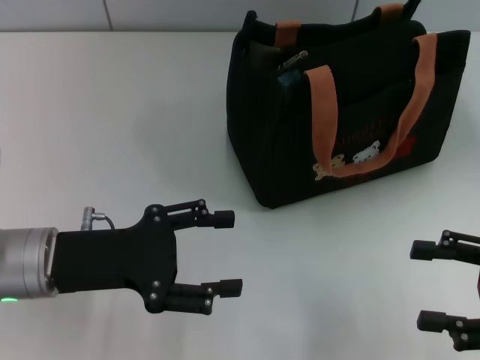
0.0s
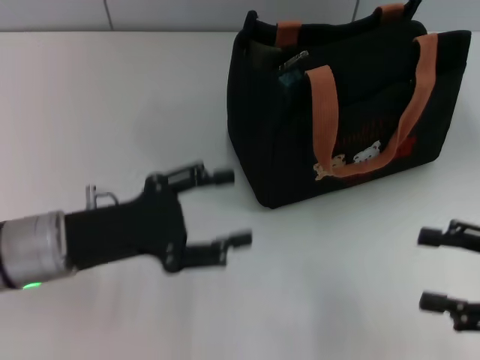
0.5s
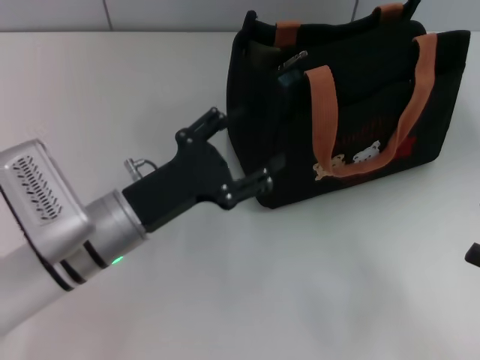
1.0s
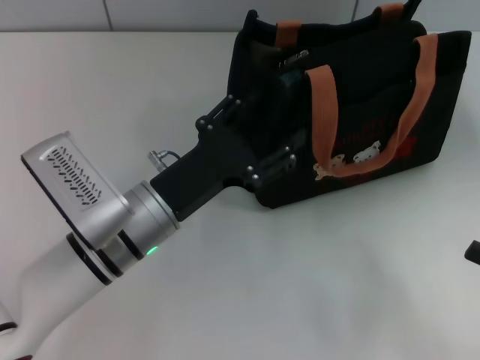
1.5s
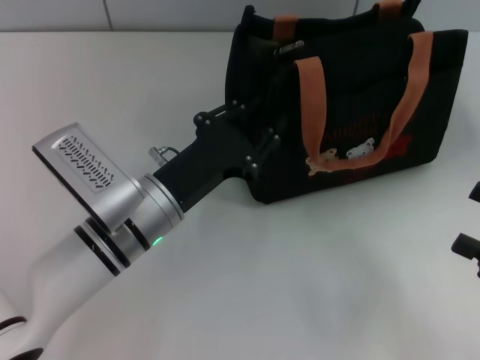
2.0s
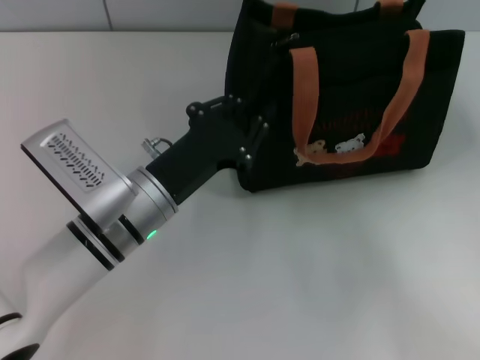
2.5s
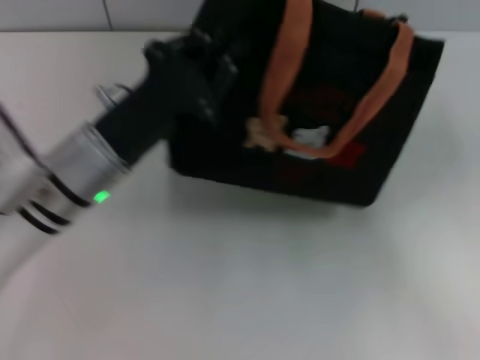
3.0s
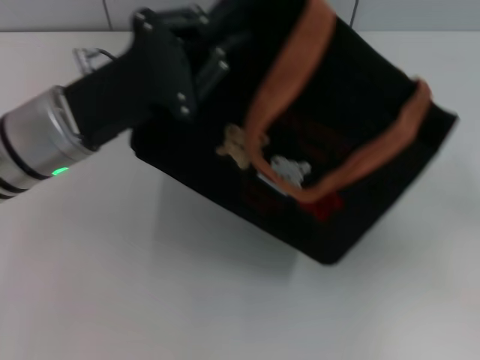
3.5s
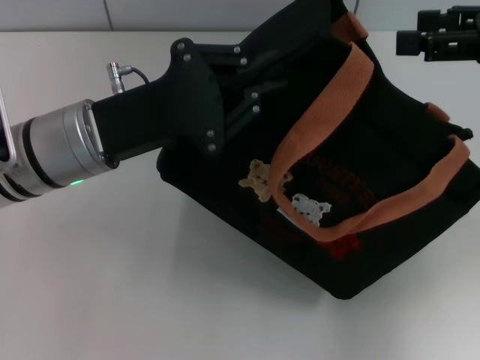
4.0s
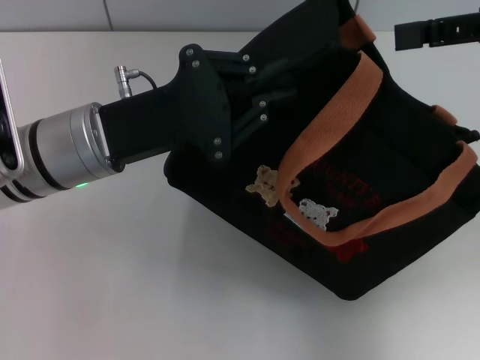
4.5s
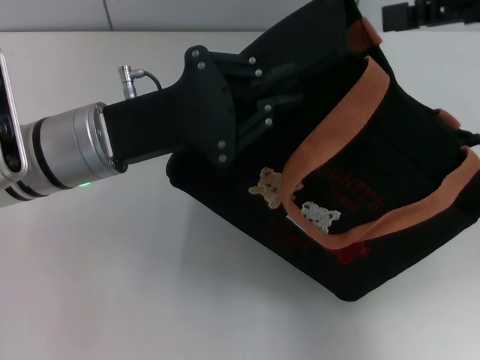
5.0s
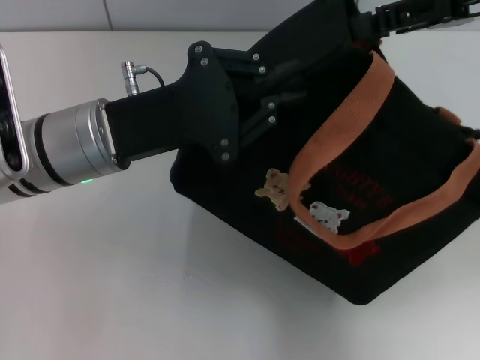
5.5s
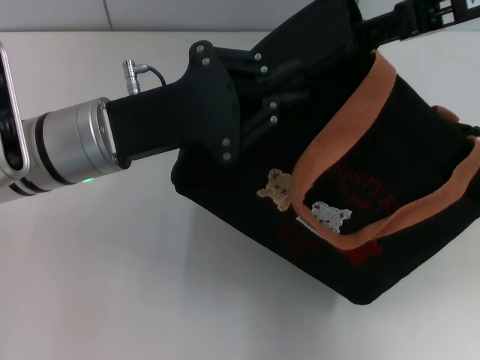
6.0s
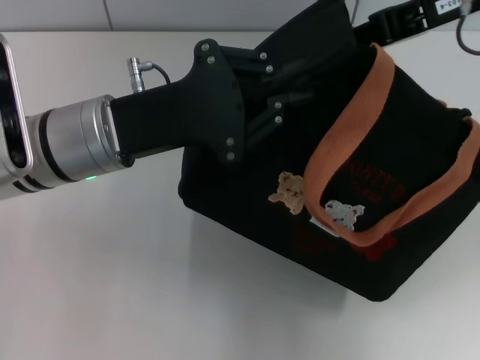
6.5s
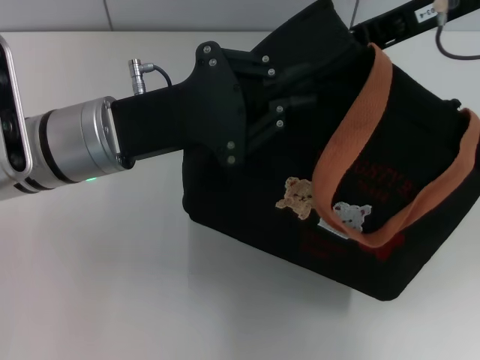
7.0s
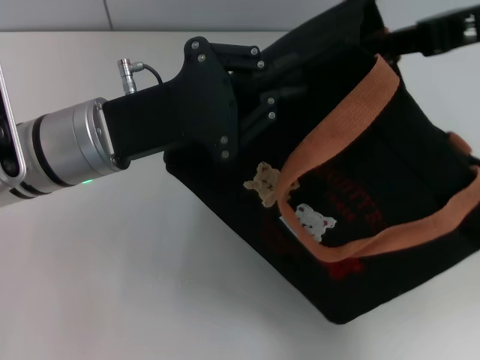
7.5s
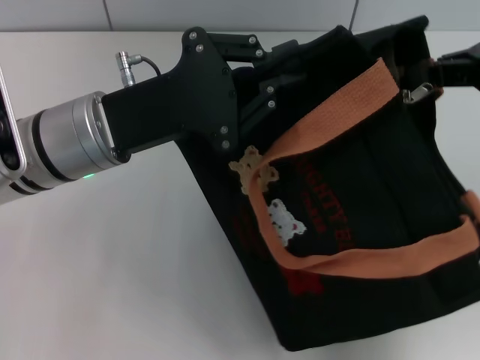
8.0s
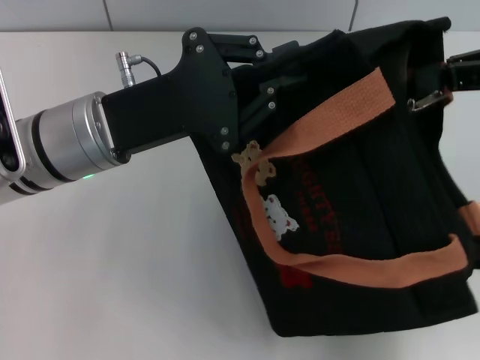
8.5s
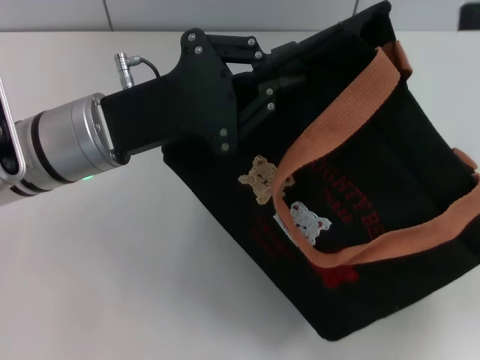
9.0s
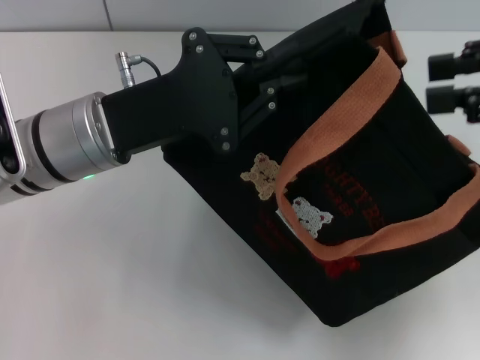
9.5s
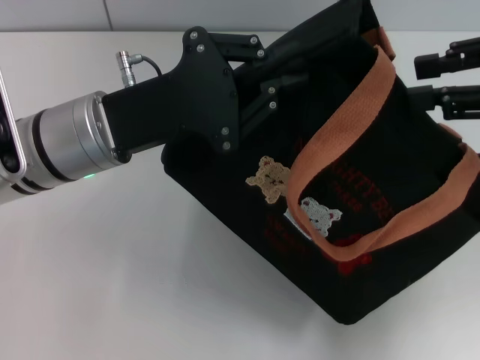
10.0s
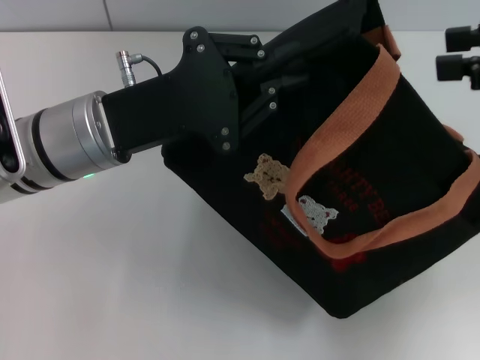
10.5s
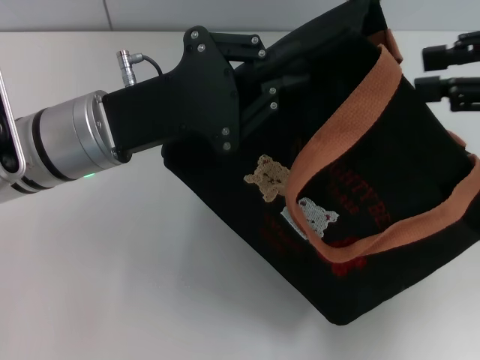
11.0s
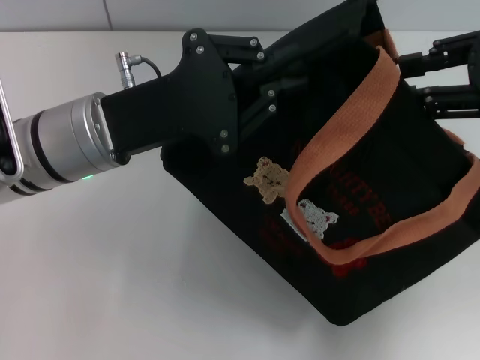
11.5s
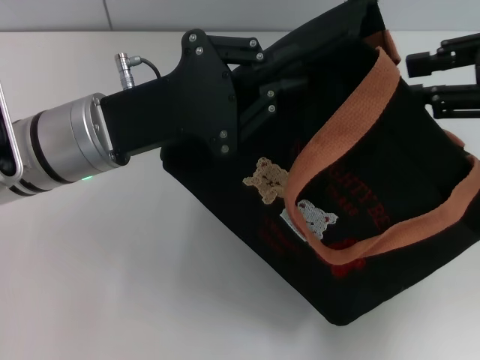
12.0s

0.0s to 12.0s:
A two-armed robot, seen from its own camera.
0.0s to 2.0s: The left gripper travels to the right by roughly 10 cm, and closes up.
2.0s to 4.0s: The left gripper travels upward and to the left by roughly 10 cm, and closes up. The right gripper travels upward and forward by about 20 cm.
4.0s to 6.0s: The right gripper moves to the left, approximately 5 cm.
6.0s to 8.0s: The right gripper moves to the right, approximately 5 cm, and closes its fingers.
8.0s to 10.0s: The right gripper opens.
10.0s to 12.0s: There are only small adjustments of the grippers.

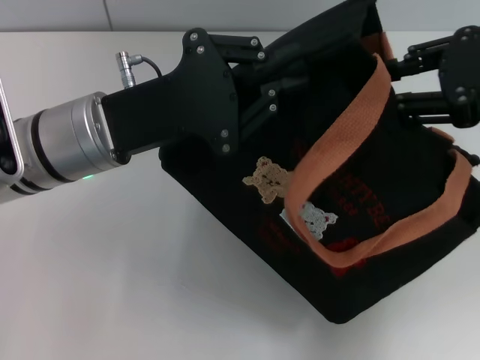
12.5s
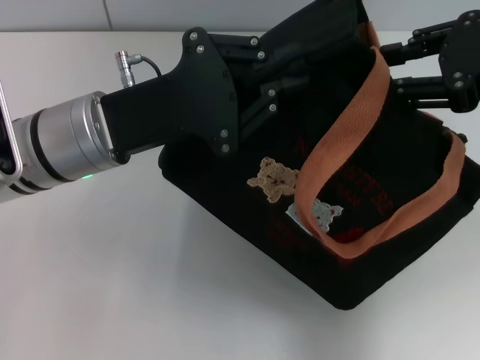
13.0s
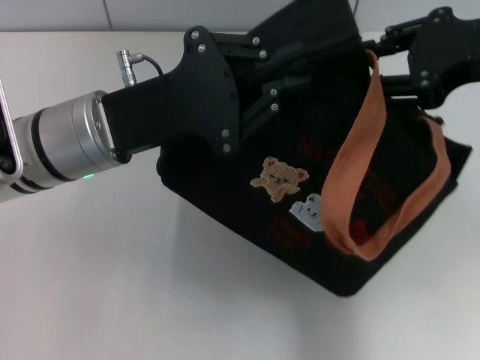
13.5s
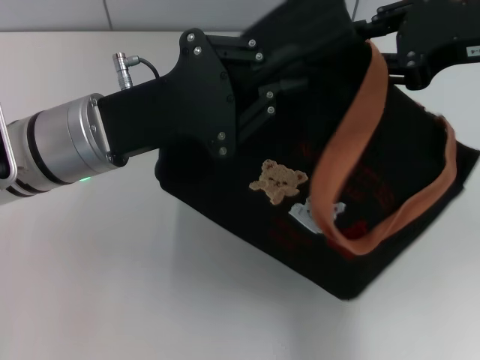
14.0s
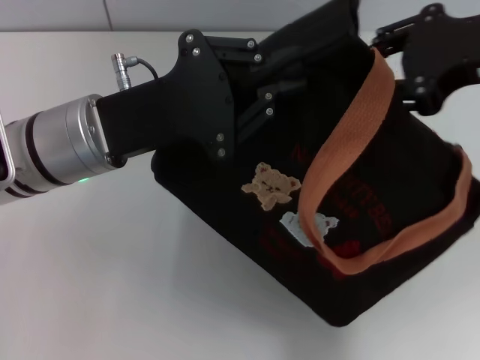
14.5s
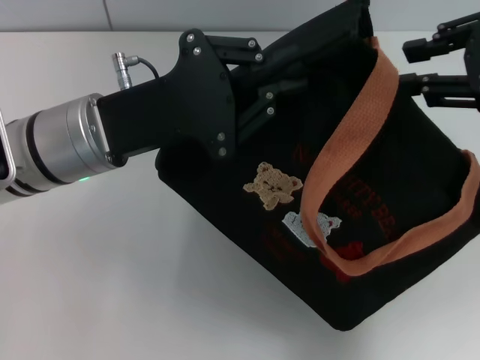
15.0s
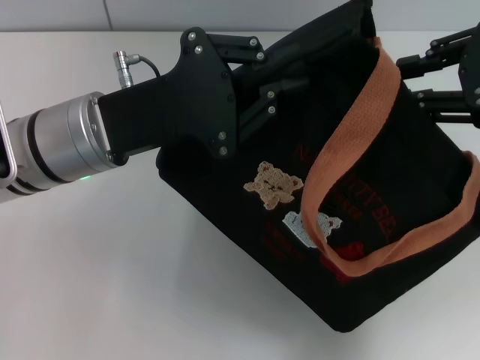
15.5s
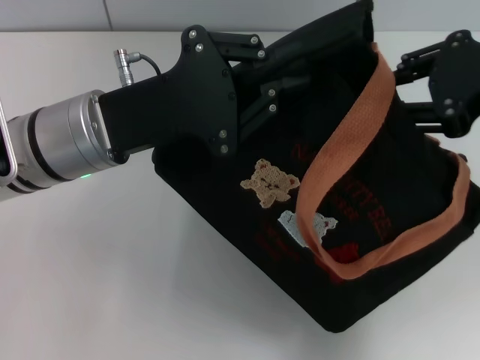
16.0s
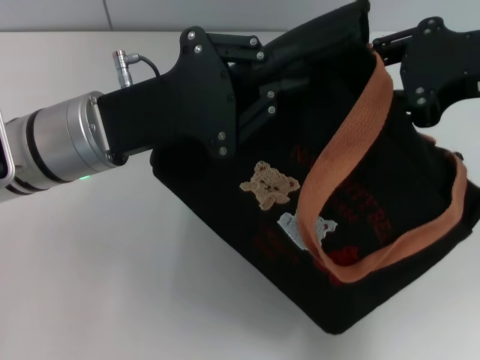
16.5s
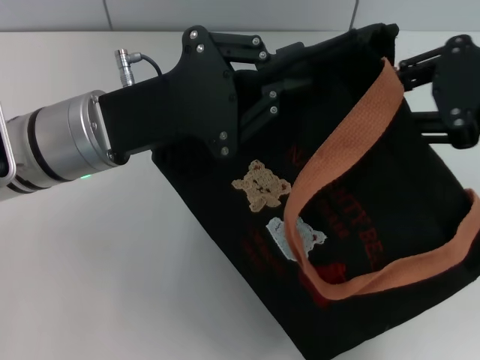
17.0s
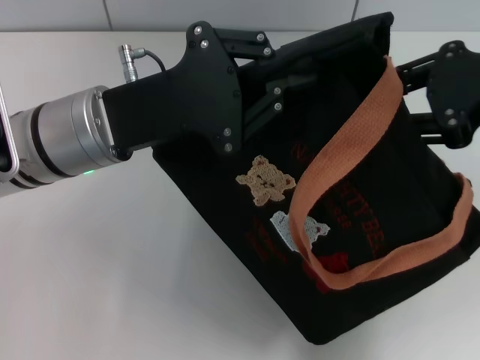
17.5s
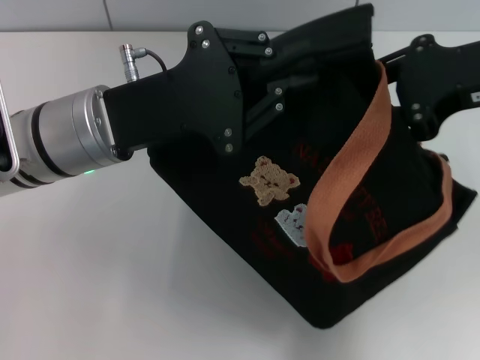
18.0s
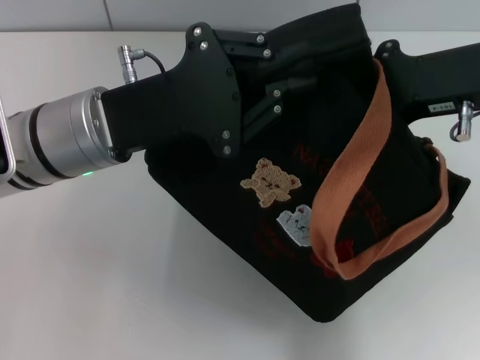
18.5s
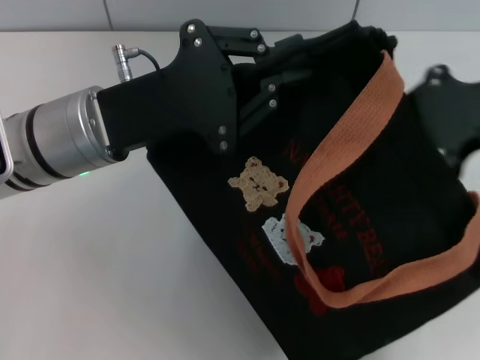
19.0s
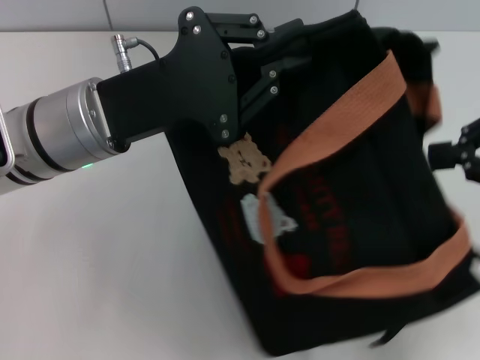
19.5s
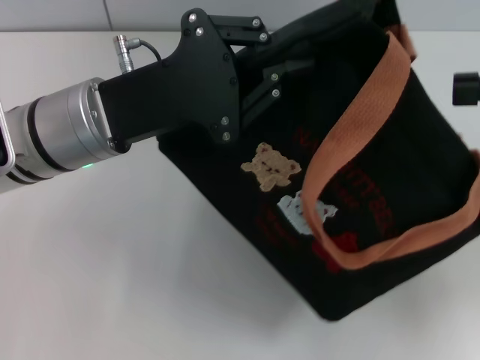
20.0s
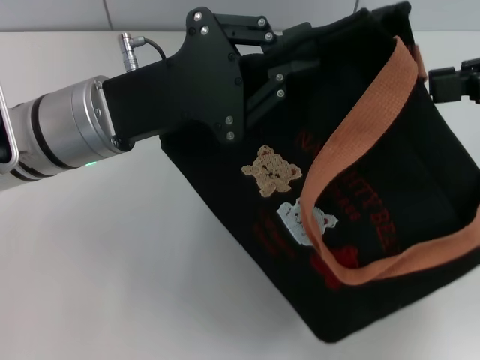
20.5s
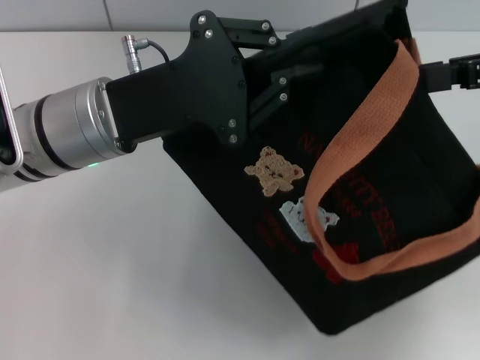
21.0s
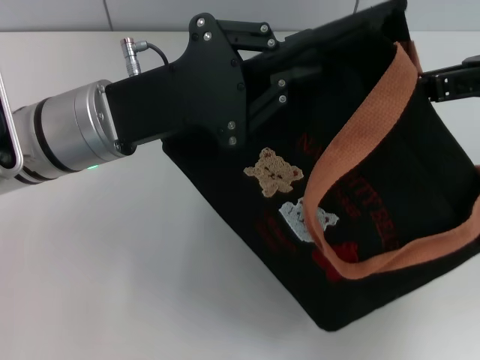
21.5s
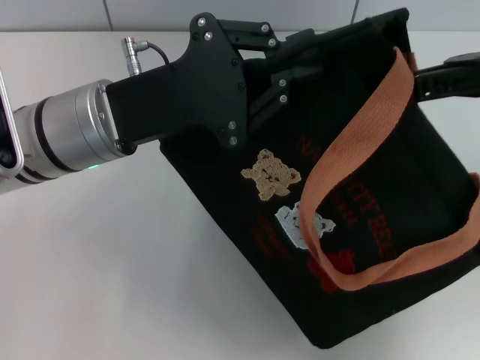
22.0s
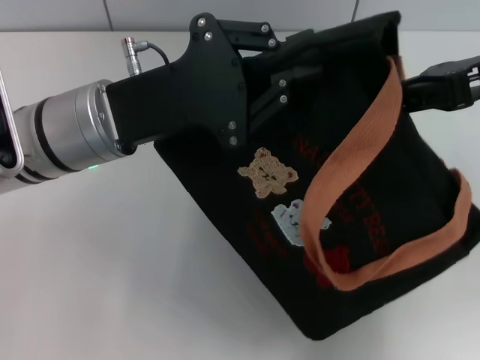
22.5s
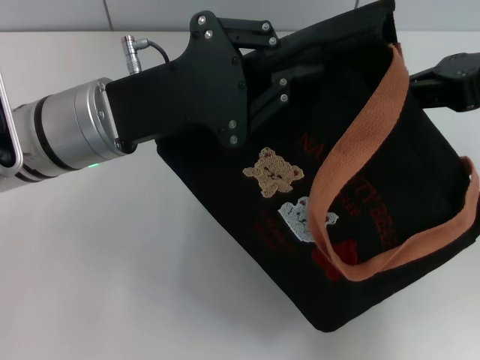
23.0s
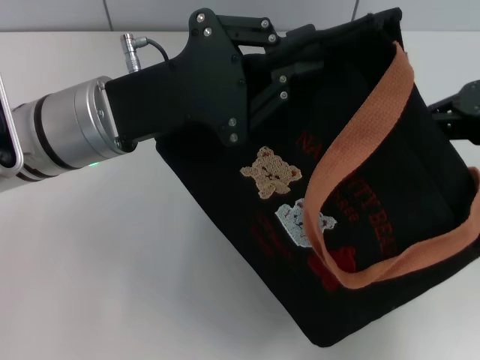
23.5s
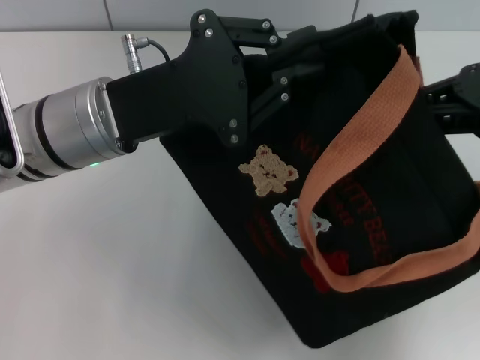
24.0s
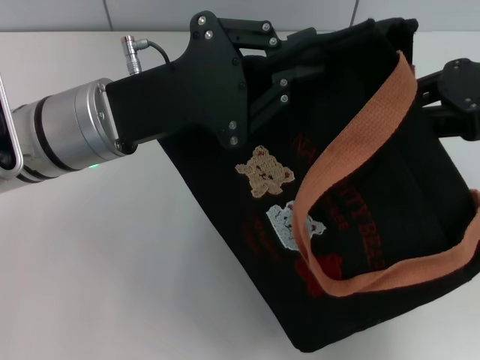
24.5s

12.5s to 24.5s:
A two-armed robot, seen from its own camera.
12.5s to 18.5s: The grippers move only a little.
18.5s to 20.5s: The right gripper moves to the right, approximately 10 cm.
20.5s to 22.5s: The right gripper heads to the left, covering roughly 5 cm.
22.5s to 24.5s: The grippers make only small movements.

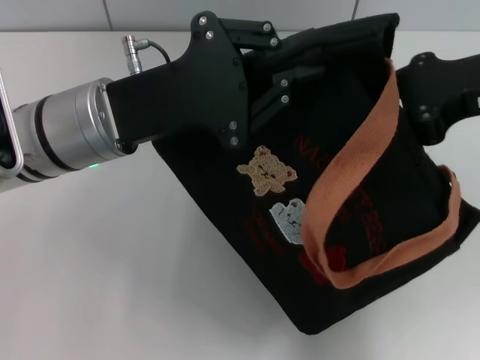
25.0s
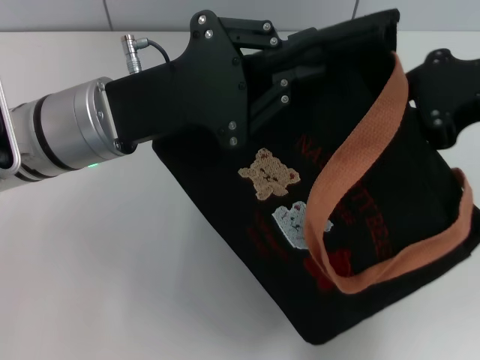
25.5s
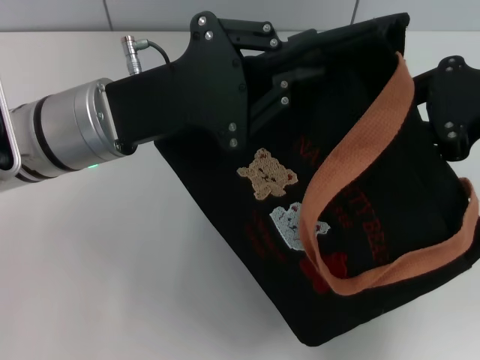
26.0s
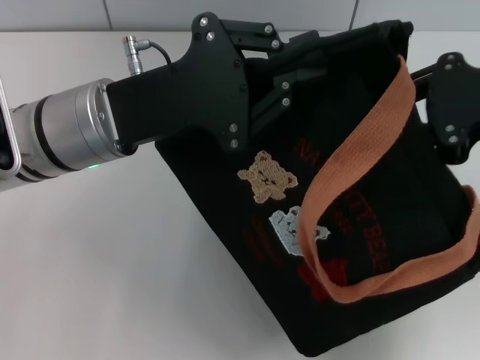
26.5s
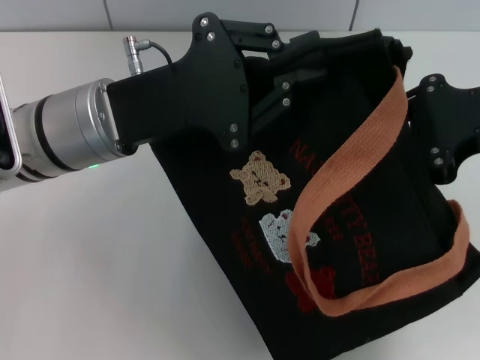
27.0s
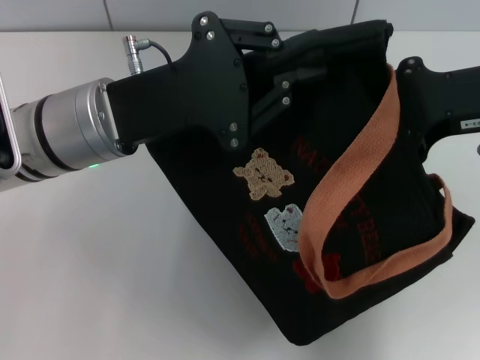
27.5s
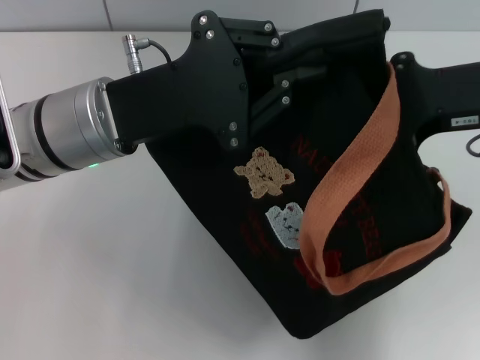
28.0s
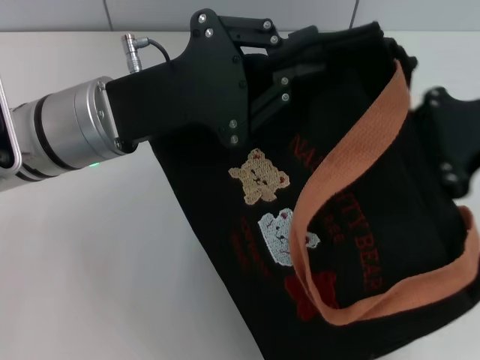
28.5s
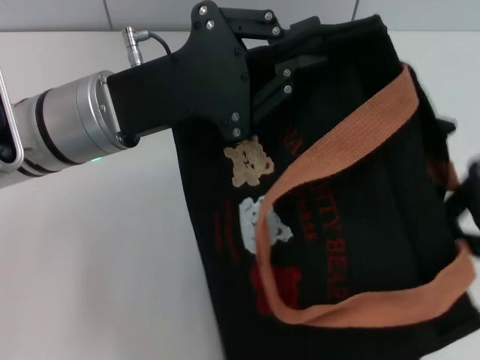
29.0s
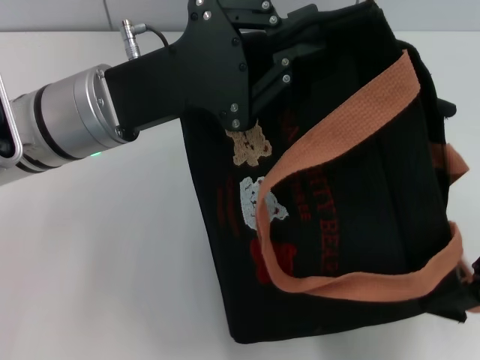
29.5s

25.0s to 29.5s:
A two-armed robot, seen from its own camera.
27.0s to 29.5s: The right gripper goes some 5 cm to the right.
